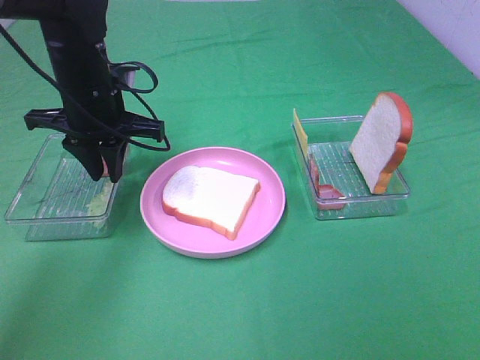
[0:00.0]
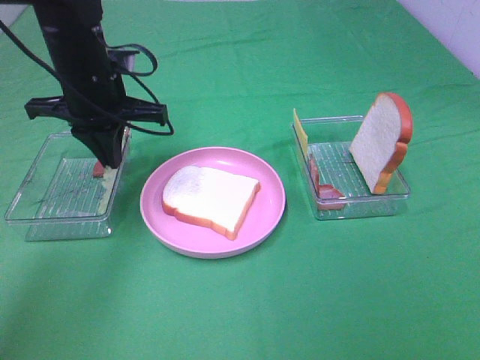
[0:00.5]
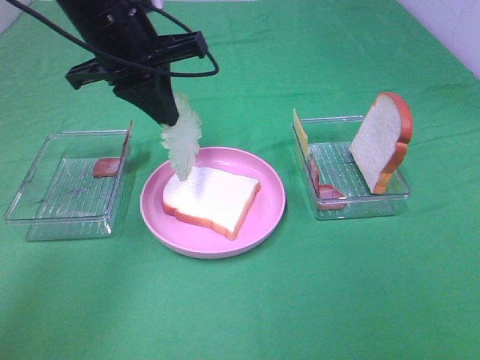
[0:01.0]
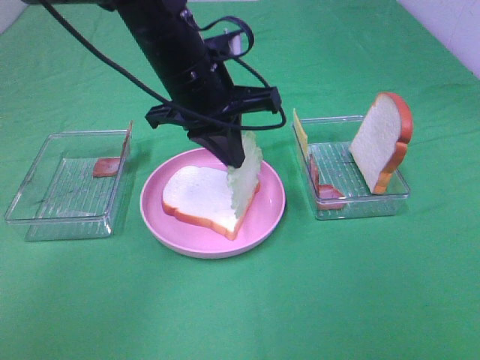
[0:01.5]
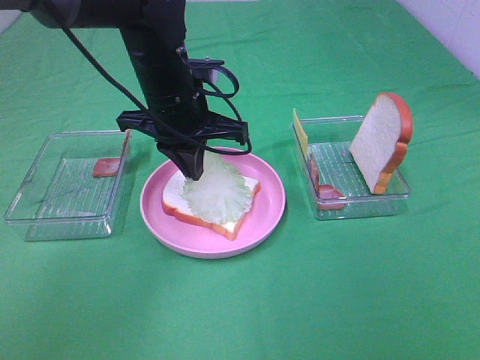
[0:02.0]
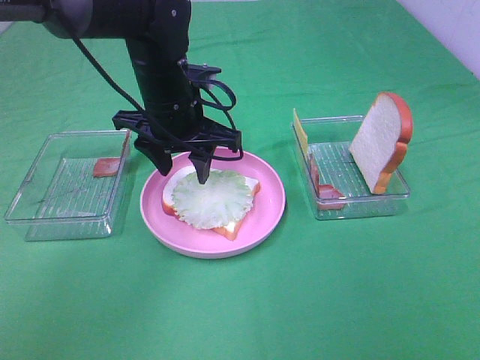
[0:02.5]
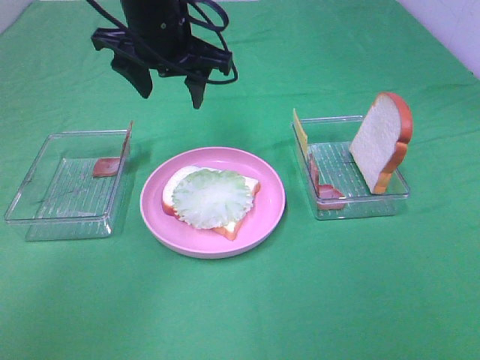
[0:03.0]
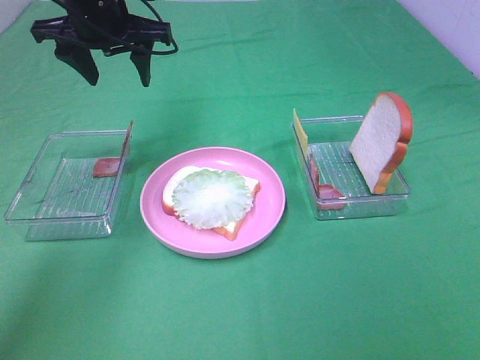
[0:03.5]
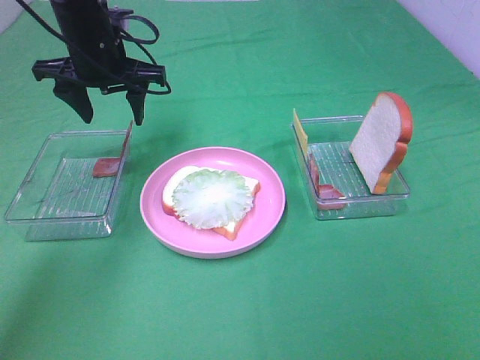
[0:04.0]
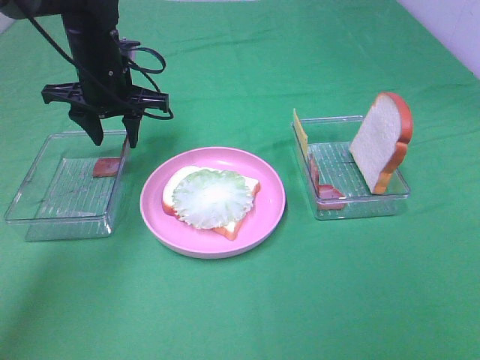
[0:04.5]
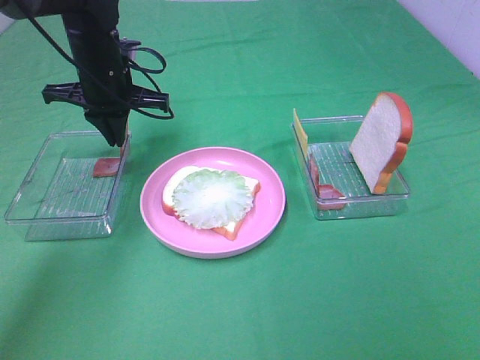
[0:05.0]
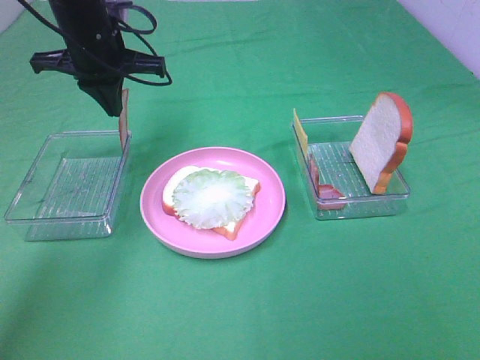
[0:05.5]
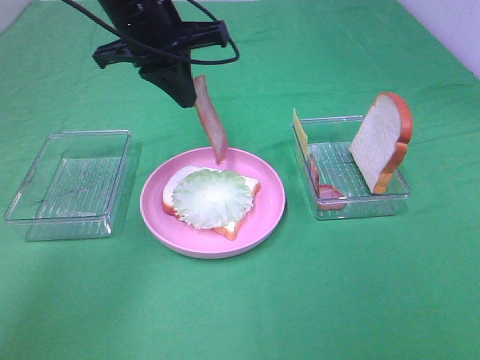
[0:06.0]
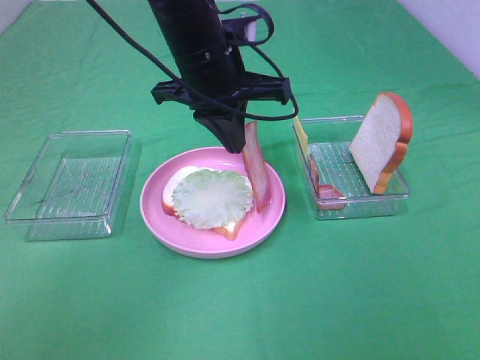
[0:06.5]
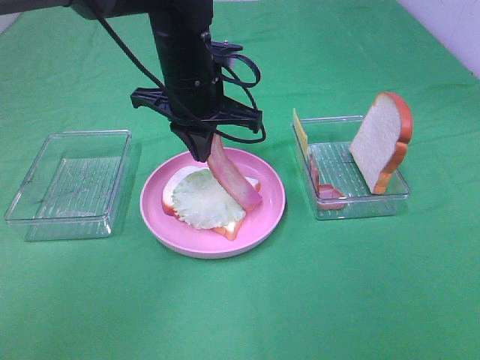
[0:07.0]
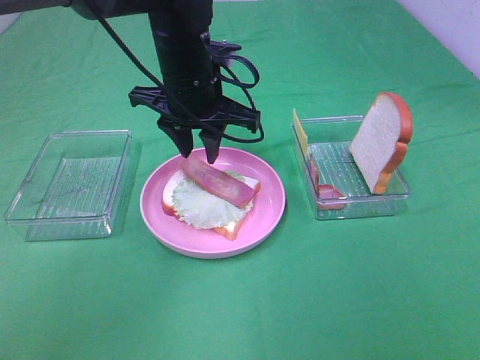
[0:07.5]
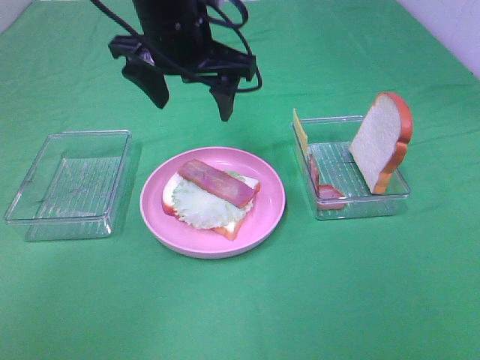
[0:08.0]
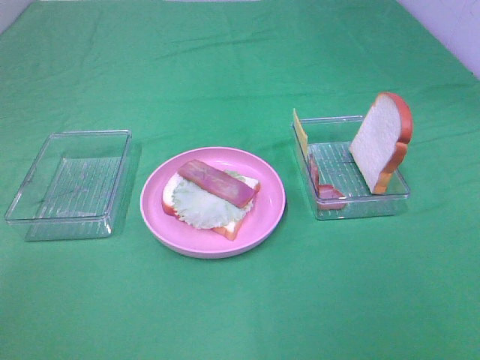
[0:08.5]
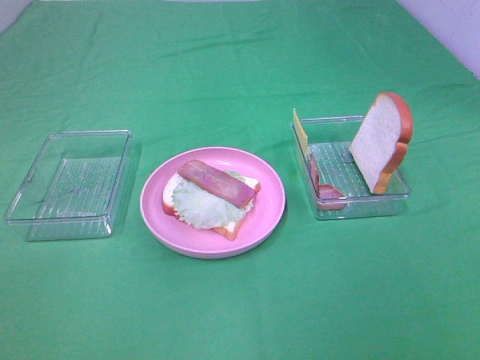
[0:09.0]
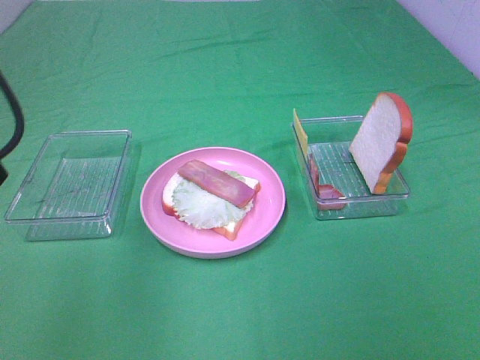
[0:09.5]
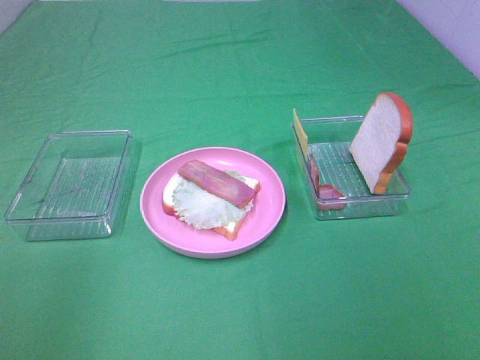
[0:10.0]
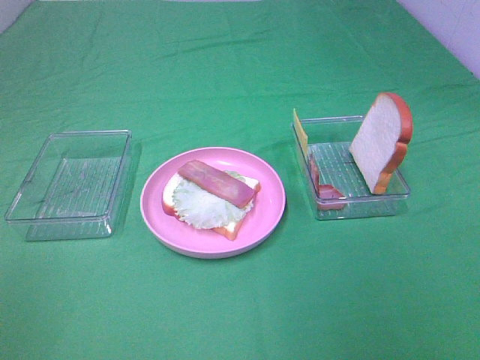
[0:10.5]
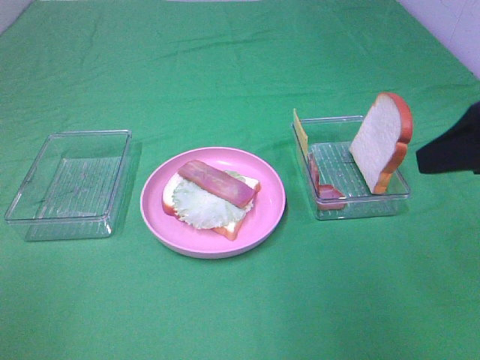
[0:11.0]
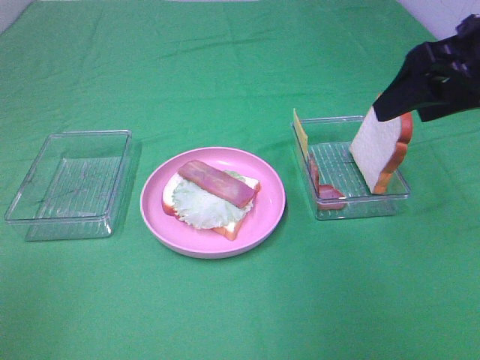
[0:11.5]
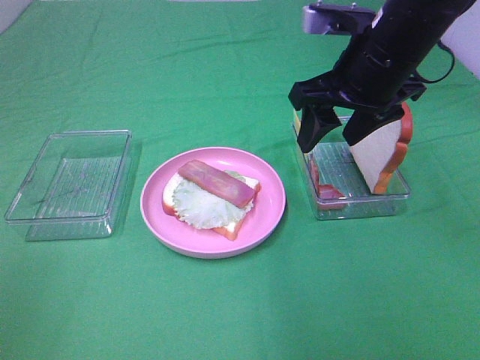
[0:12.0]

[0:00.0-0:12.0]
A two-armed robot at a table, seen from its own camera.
Task of the whole recording: Make sandwiches.
Step, 0:00.5 to 0:02.5: Left hand:place the lettuce slice on the bread slice.
Step, 0:03.0 to 0:05.0: Left hand:grab the bacon.
Step, 0:05.5 to 0:07.5: Left hand:place bacon on lettuce slice.
0:00.0 to 0:02.0: The left gripper travels to the right by some 10 cm.
0:02.0 to 0:04.0: The left gripper goes some 10 cm to the left and forward, and opens.
0:04.0 to 0:06.0: The left gripper goes roughly 10 cm to the right and upward, and closes.
0:06.0 to 0:08.0: The left gripper moves some 5 cm downward and comes back, and opens its fingers.
0:08.0 to 0:10.0: The left gripper moves backward and to the left, approximately 35 cm.
0:10.0 to 0:12.0: The left gripper is displaced backward by about 5 cm; the right gripper moves forward and to the left, some 35 cm.

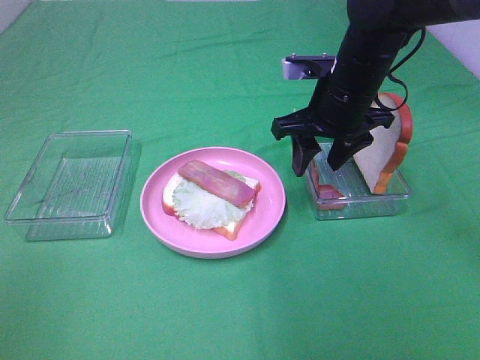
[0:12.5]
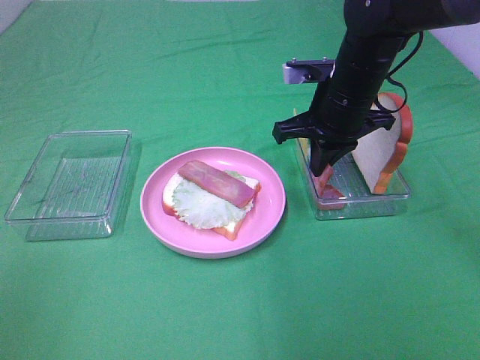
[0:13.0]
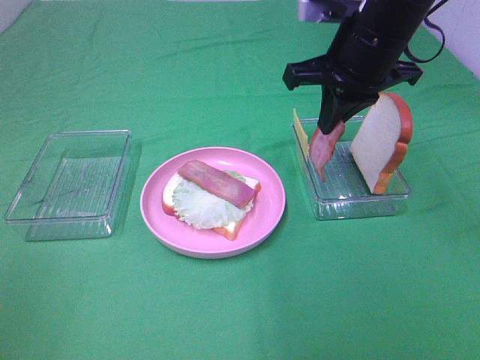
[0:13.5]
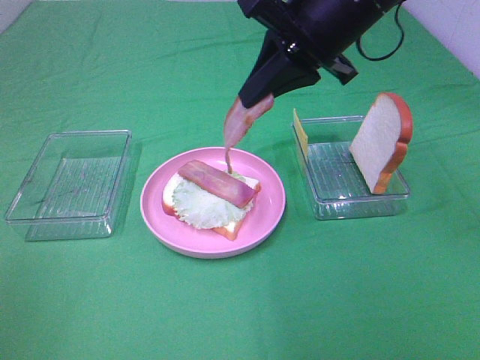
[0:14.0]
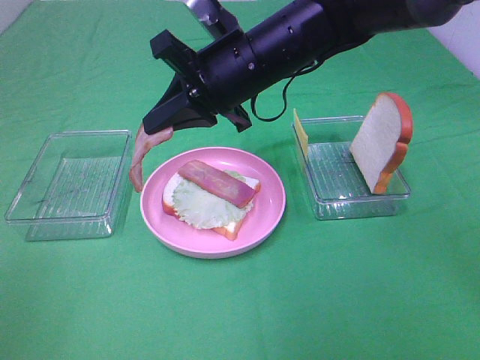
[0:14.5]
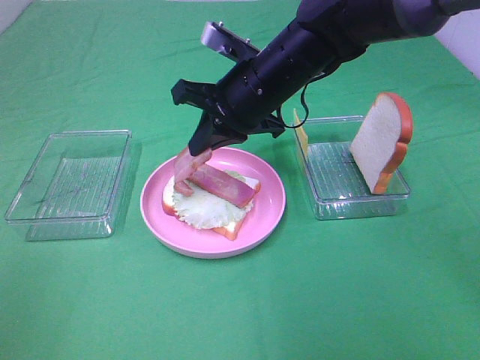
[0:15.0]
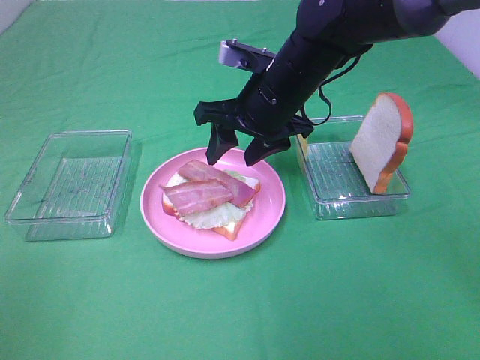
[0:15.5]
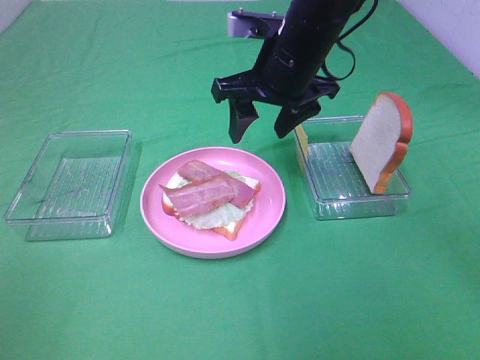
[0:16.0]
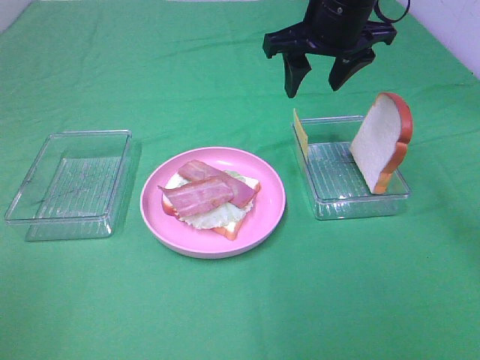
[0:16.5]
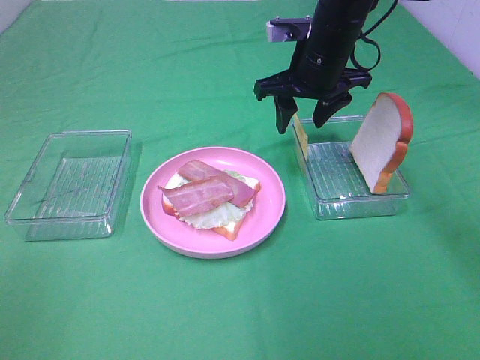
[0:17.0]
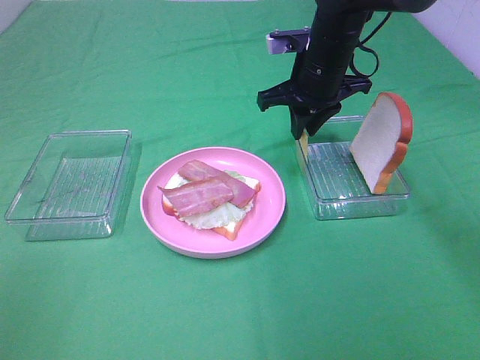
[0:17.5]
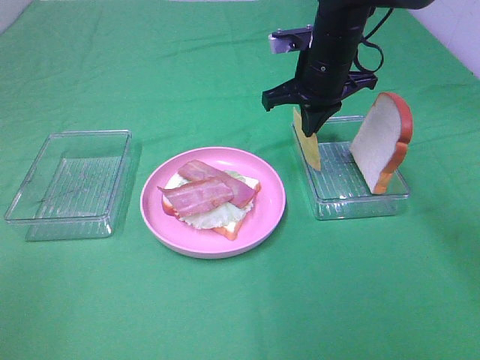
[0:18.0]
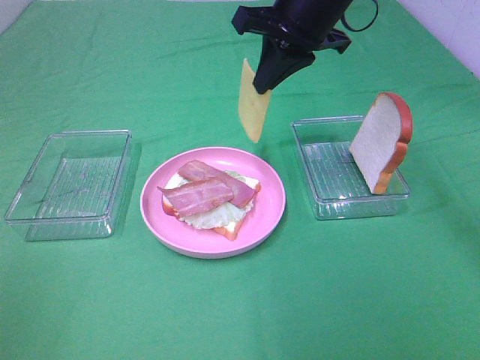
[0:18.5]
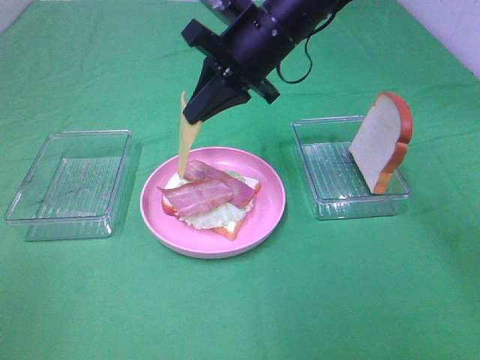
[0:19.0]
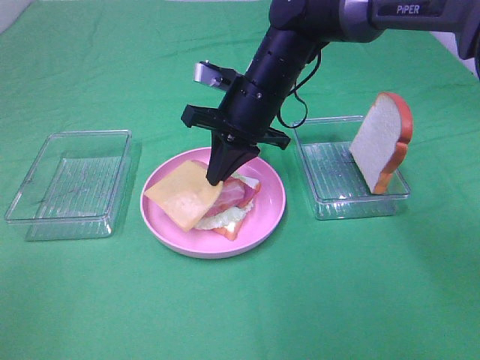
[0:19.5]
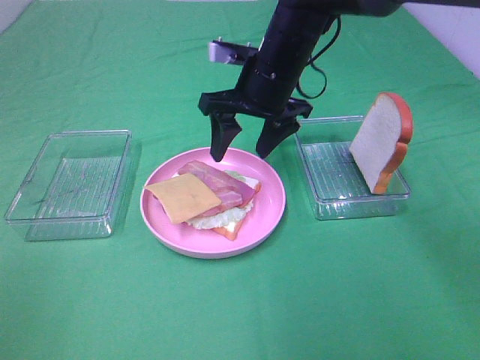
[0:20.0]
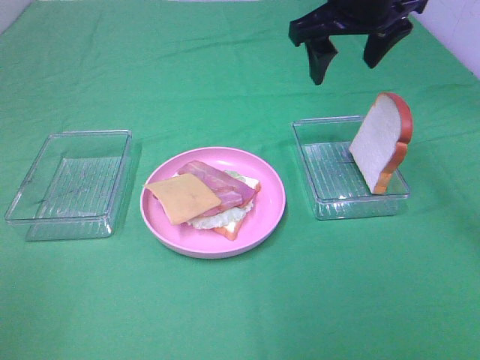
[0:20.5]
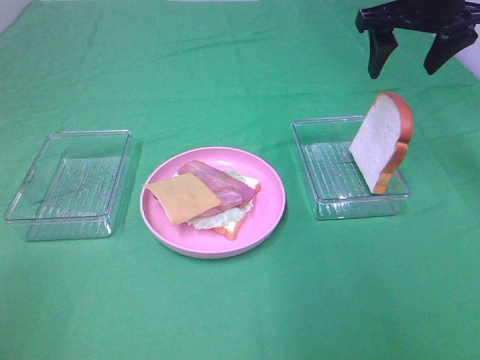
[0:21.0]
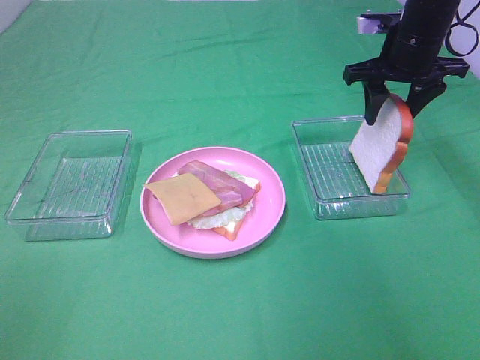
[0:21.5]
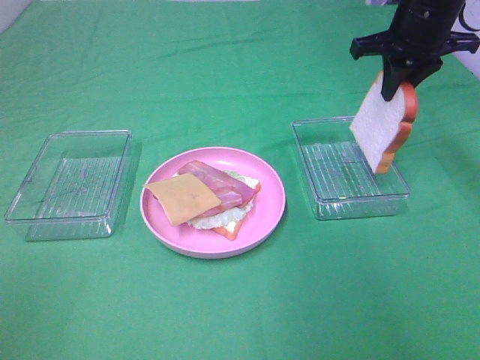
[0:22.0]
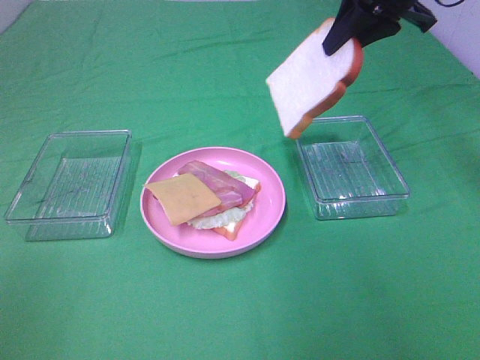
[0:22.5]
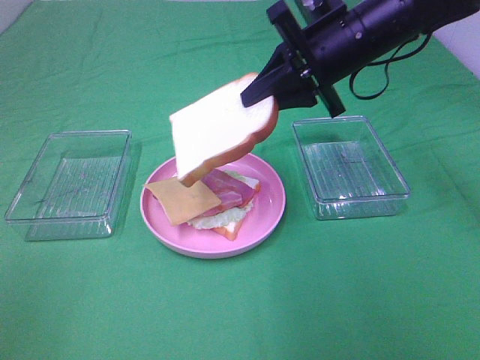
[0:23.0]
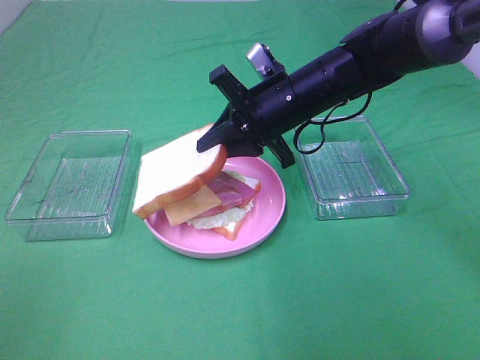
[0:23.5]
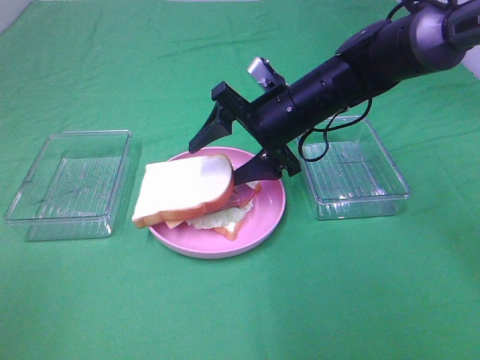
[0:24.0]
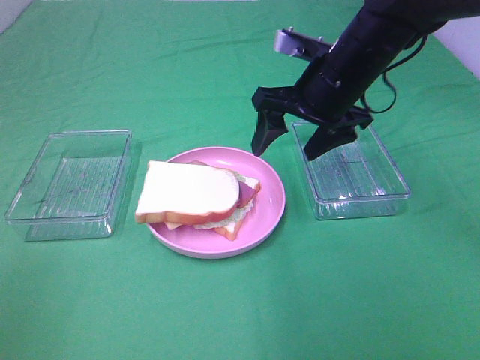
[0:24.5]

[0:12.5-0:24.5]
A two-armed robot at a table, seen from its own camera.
Task of the whole recording: Make sandwiches.
Step, 0:13.5 to 0:15.5: Right hand:place bacon on bacon.
Step, 0:16.0 to 0:17.5: Right hand:grab the cheese slice.
Step, 0:18.0 to 0:19.5: Right hand:place the cheese slice on top of the bacon.
Step, 0:20.0 to 0:21.5: Right hand:grab the bread slice.
Step, 0:22.0 to 0:24.0: Right hand:place the bread slice on the cheese slice.
0:12.5 to 0:14.5: The right gripper shifts roughly 10 cm to the left, and closes its fingers.
0:14.5 to 0:16.5: The right gripper is displaced to the right and forward by some 10 cm, and opens its fingers.
0:16.5 to 0:18.5: The right gripper travels downward and back again, approximately 10 cm each way, and closes up.
0:18.5 to 0:20.5: The right gripper goes downward and returns, approximately 10 cm each way, and opens up.
0:20.5 to 0:22.5: The right gripper reaches about 10 cm downward, then returns, and closes its fingers.
0:22.5 to 0:24.5: The right gripper shifts some 15 cm downward, to the left and backward, and opens up.

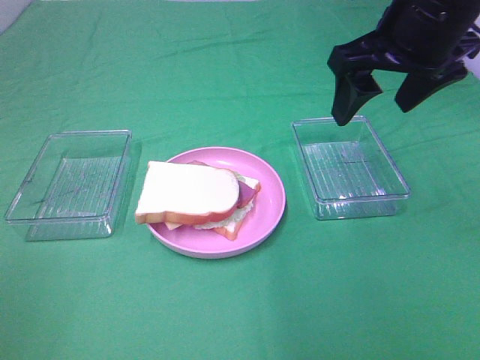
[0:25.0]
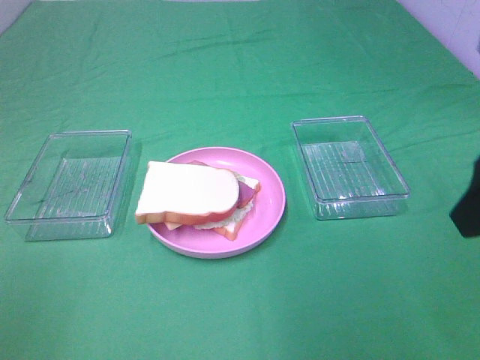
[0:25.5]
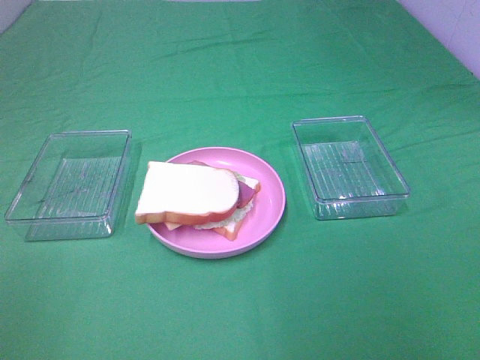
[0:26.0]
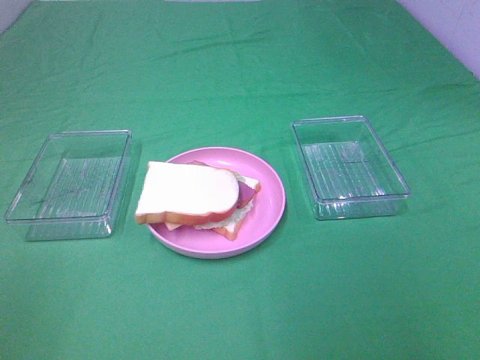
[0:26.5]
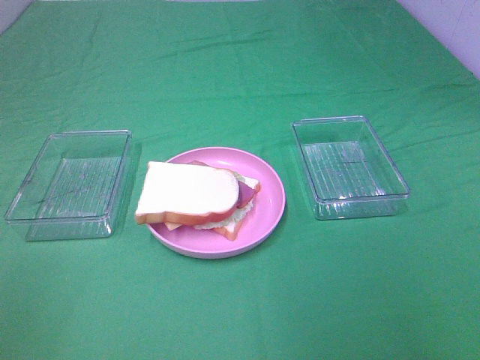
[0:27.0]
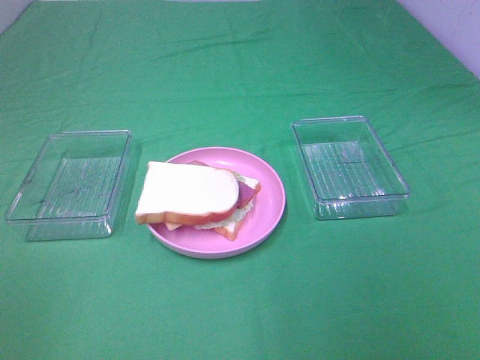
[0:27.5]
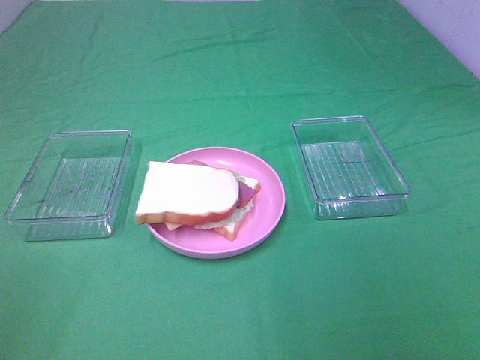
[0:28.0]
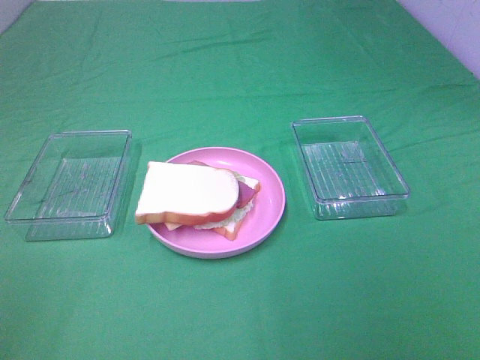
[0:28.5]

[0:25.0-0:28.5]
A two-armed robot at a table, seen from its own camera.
Task of the whole recording: Make sandwiches.
0:25.0 to 0:27.0: The right gripper travels backward and to the right by approximately 30 cm.
